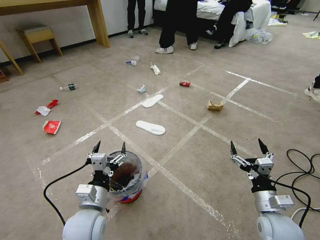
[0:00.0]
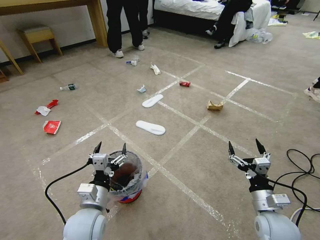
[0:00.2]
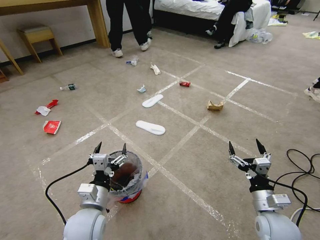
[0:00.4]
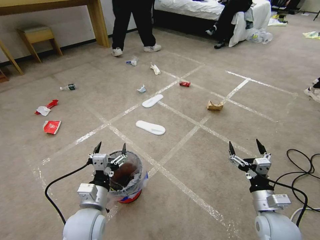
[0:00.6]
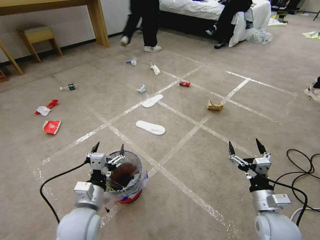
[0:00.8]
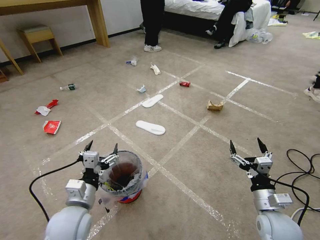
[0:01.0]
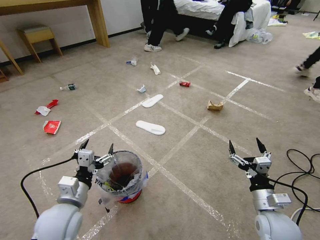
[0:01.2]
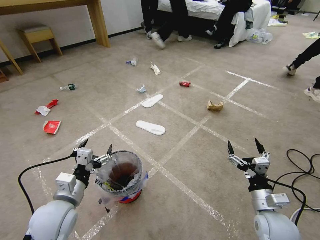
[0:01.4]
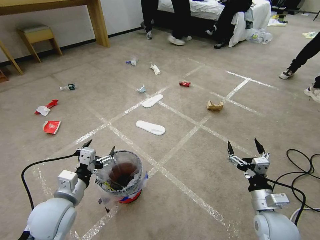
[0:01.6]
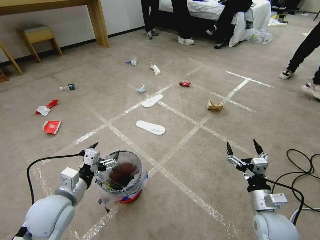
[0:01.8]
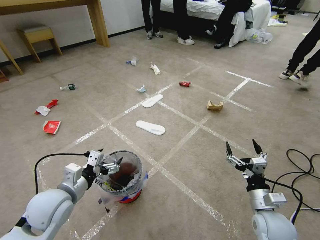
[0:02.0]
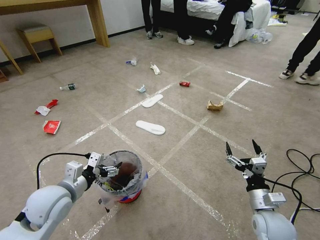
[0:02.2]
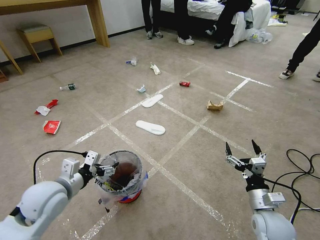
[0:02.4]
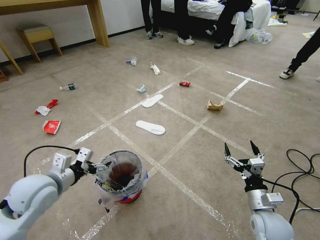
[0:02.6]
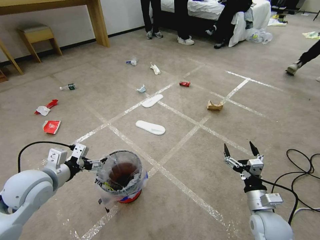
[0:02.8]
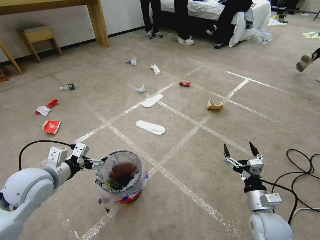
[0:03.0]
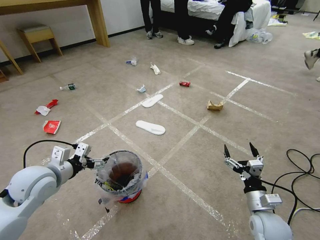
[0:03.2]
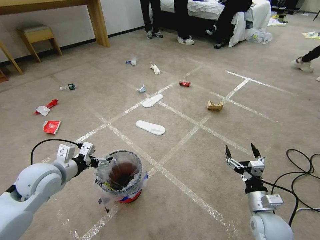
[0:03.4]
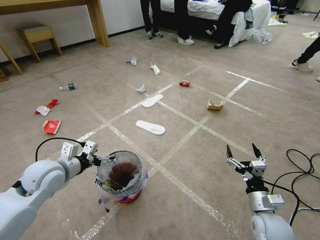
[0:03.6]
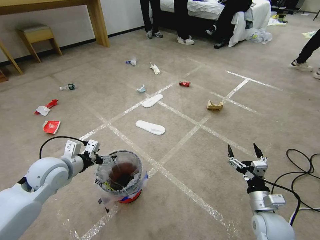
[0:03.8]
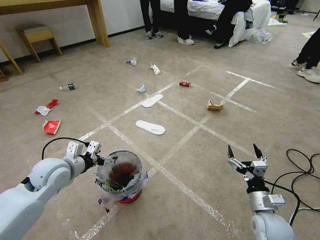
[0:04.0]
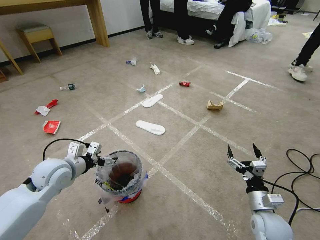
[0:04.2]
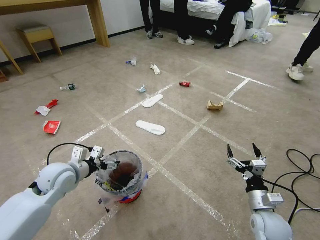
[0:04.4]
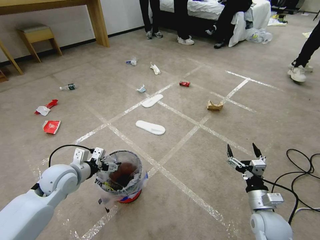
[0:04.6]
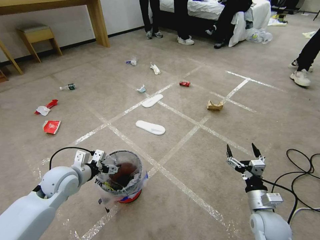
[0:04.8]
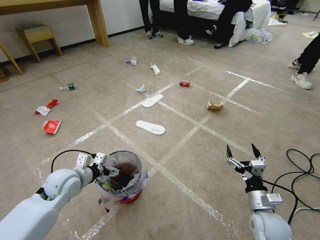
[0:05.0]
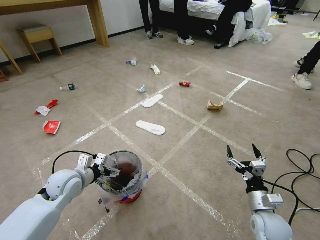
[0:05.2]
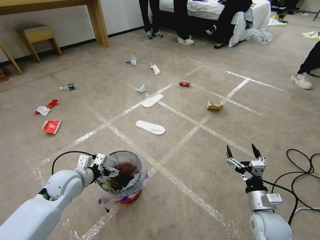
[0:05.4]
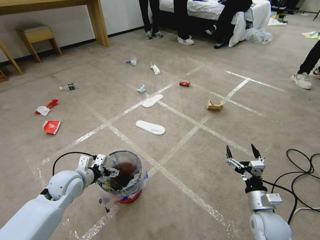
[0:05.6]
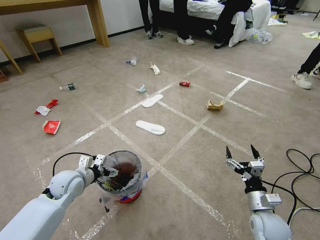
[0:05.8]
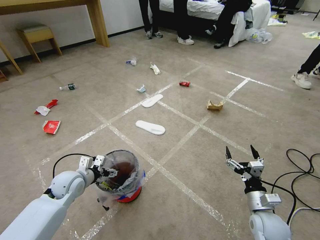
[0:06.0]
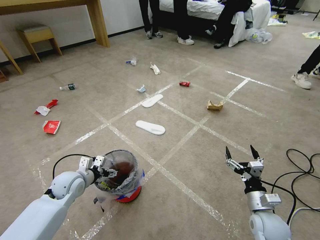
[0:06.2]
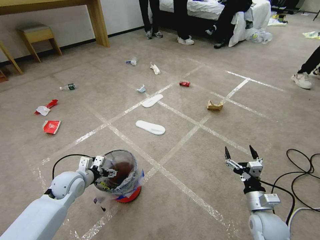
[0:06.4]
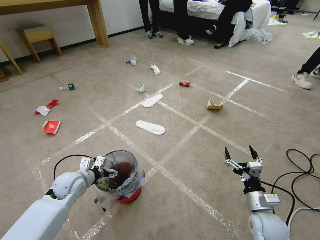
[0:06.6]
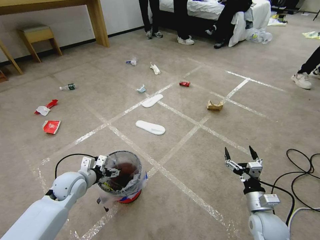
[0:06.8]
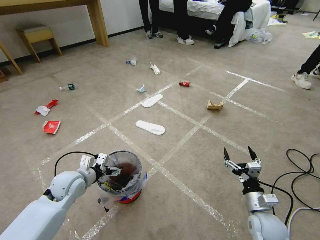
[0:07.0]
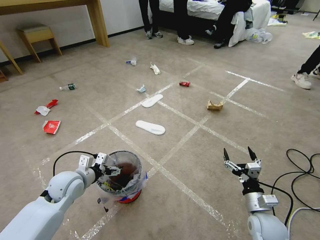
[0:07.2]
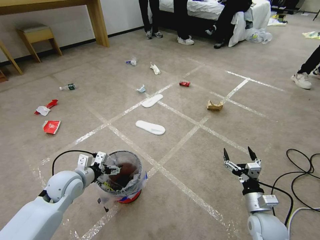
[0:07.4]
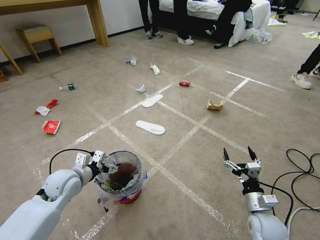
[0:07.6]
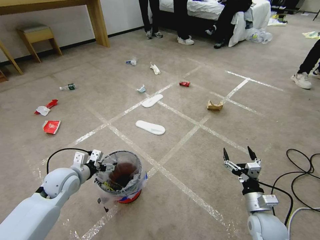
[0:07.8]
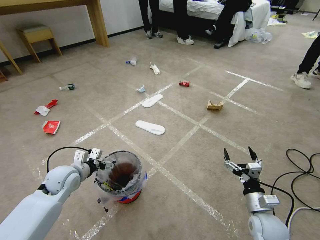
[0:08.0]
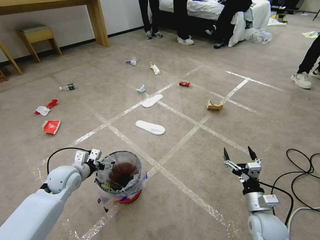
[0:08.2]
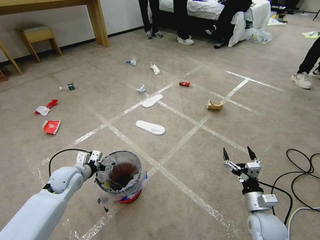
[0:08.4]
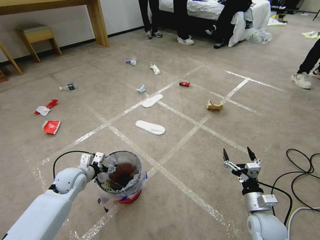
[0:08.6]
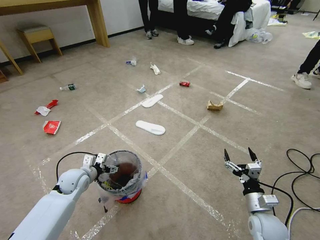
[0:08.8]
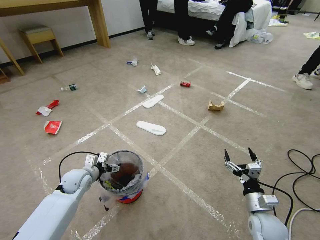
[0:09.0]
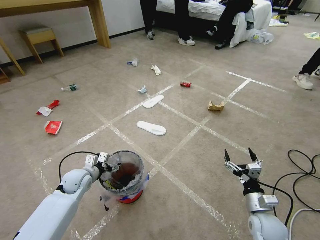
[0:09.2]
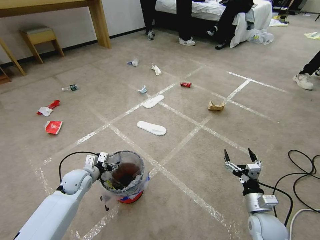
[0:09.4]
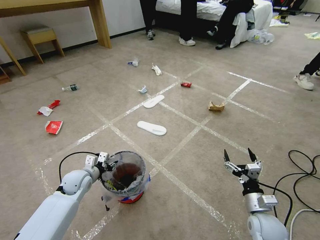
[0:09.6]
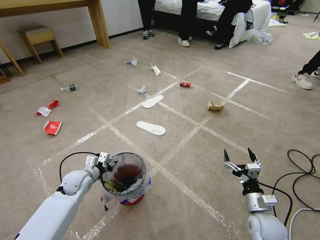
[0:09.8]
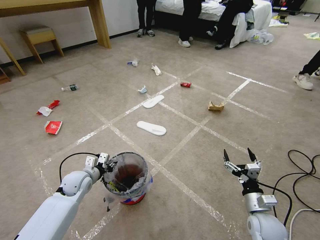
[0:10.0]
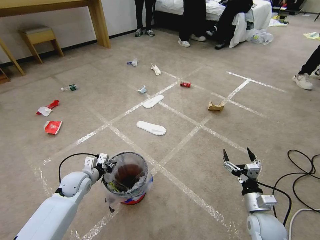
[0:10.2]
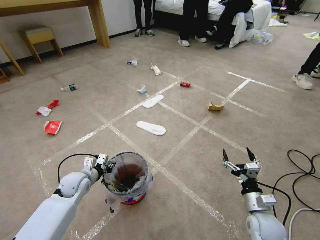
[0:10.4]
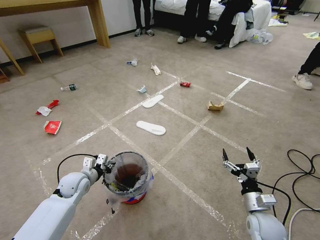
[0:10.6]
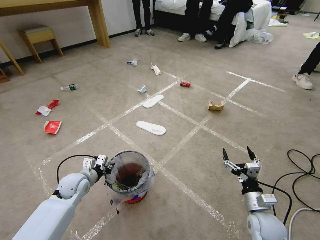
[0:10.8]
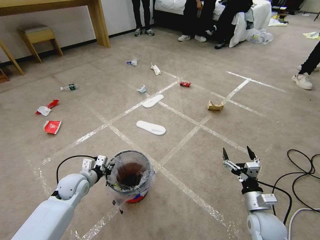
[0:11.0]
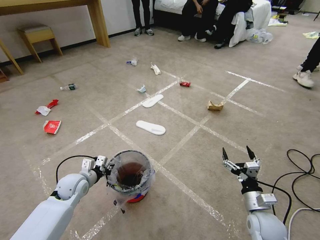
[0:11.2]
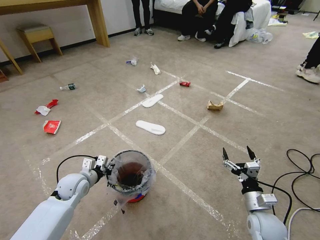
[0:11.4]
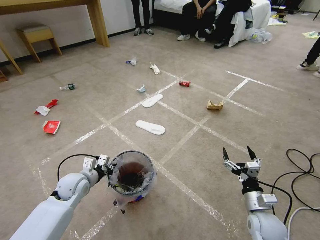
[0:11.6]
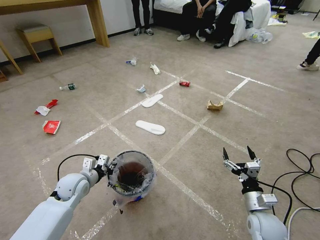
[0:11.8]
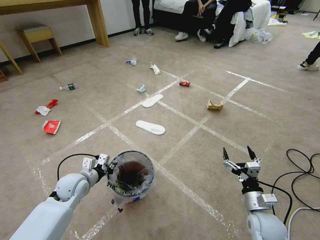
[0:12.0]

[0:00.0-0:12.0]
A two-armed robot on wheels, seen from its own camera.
Task of the whole recording: Pick up the trash bin and place the garbage on the floor into it.
0:01.6 to 0:03.0: The left gripper travels to the left, forward and upward by approximately 10 cm.
0:03.0 to 0:04.4: The left gripper goes about 5 cm downward.
0:04.4 to 0:06.0: The left gripper shifts some 10 cm downward.
0:06.0 to 0:07.6: The grippers make only small movements.
0:07.6 to 0:09.0: The left gripper moves downward, approximately 5 cm.
0:09.0 to 0:10.4: The left gripper closes.
0:10.4 to 0:12.0: The grippers move only a little.

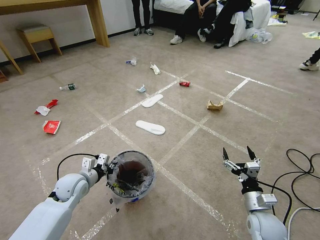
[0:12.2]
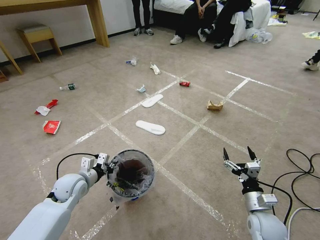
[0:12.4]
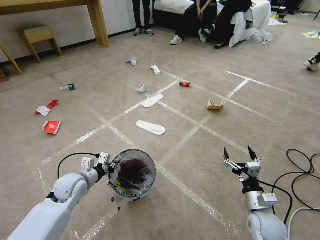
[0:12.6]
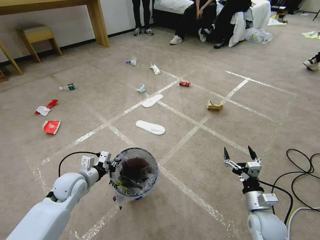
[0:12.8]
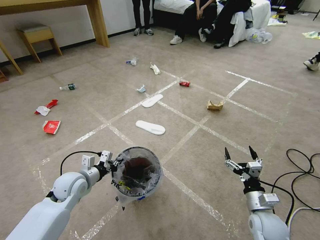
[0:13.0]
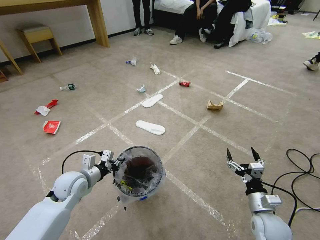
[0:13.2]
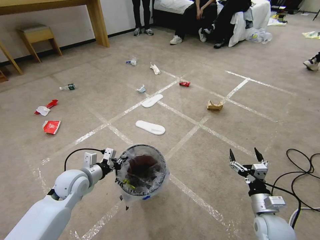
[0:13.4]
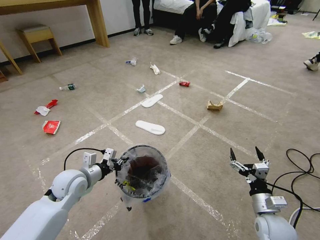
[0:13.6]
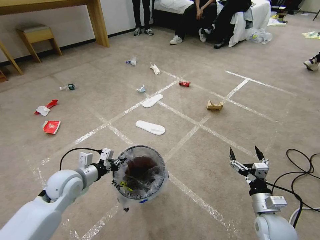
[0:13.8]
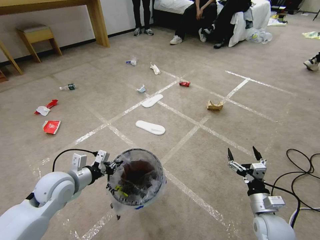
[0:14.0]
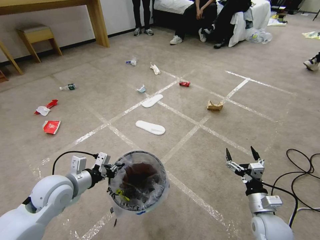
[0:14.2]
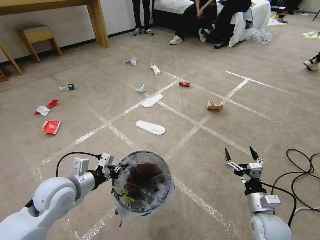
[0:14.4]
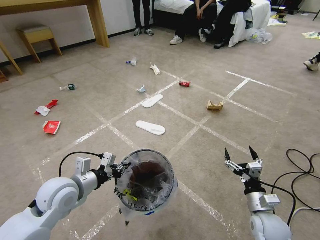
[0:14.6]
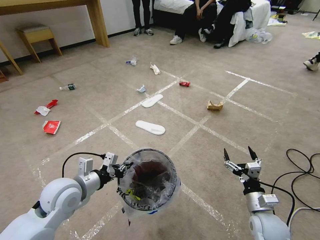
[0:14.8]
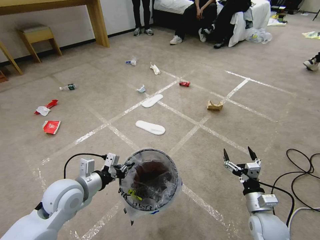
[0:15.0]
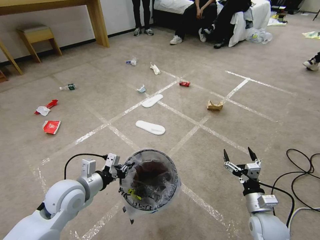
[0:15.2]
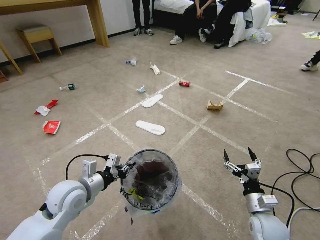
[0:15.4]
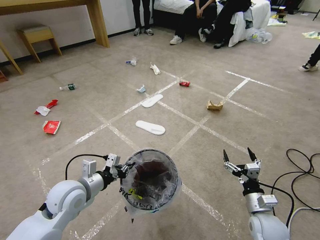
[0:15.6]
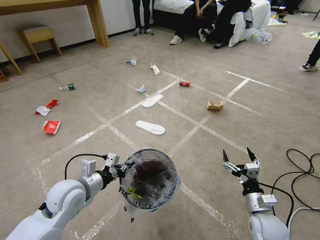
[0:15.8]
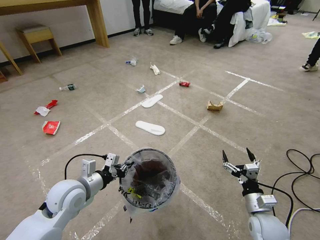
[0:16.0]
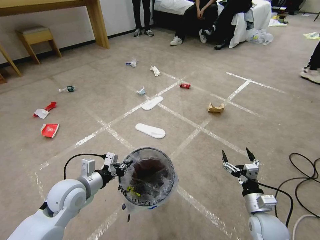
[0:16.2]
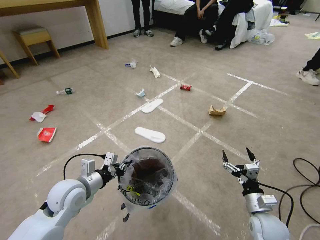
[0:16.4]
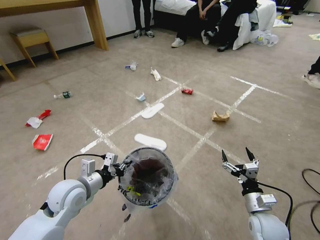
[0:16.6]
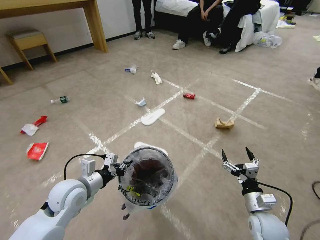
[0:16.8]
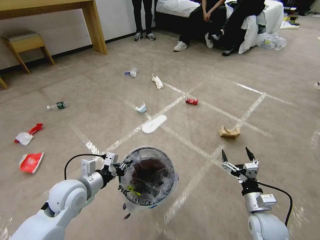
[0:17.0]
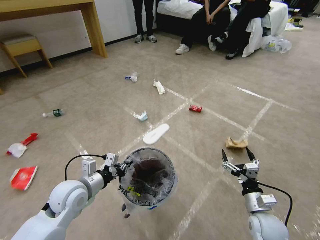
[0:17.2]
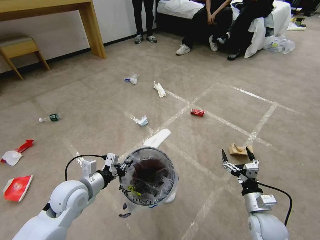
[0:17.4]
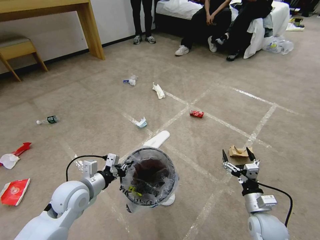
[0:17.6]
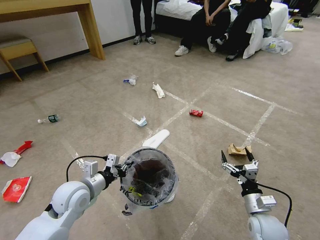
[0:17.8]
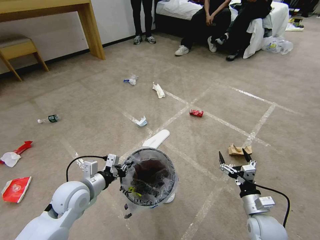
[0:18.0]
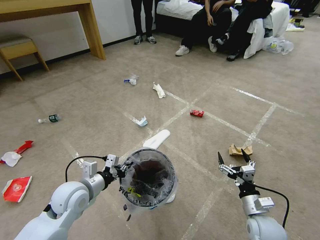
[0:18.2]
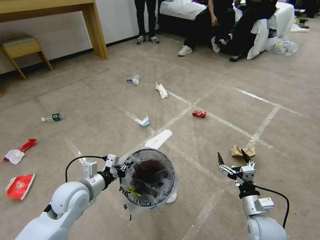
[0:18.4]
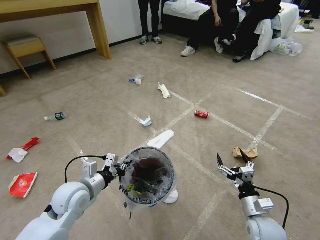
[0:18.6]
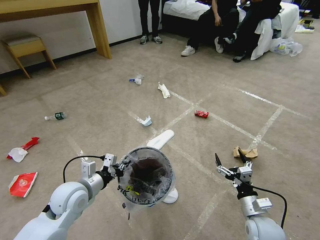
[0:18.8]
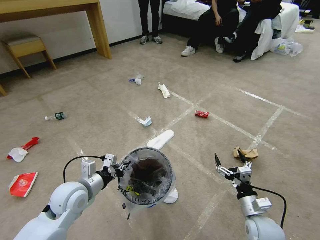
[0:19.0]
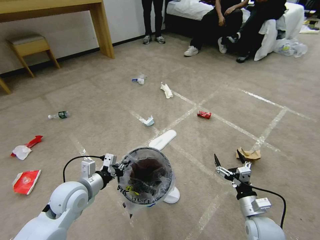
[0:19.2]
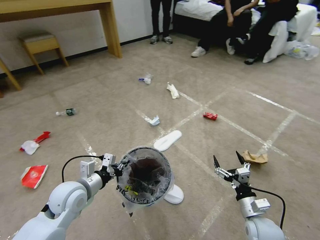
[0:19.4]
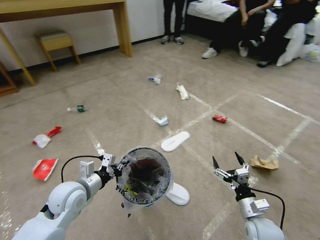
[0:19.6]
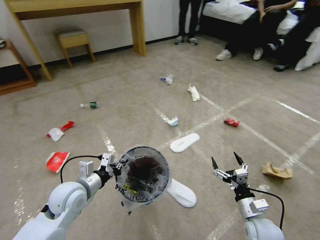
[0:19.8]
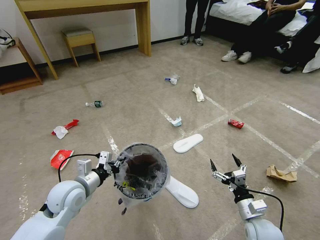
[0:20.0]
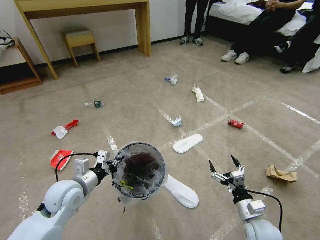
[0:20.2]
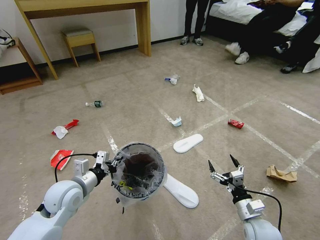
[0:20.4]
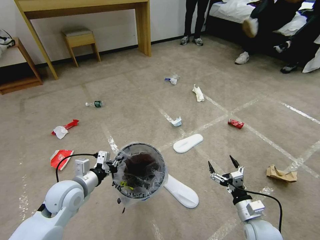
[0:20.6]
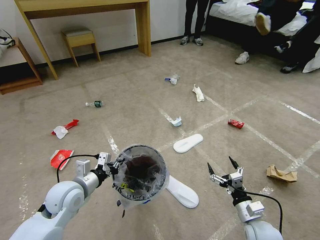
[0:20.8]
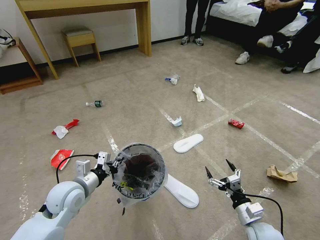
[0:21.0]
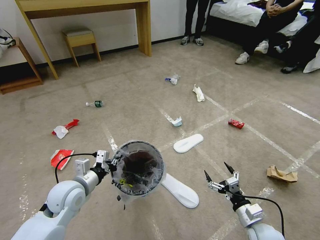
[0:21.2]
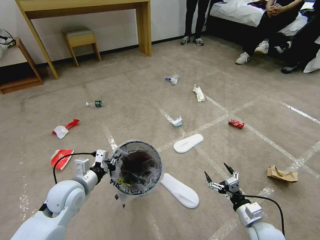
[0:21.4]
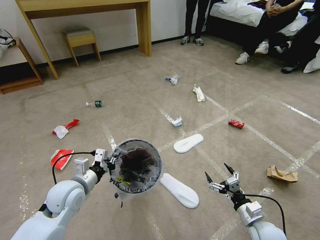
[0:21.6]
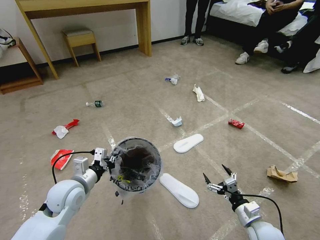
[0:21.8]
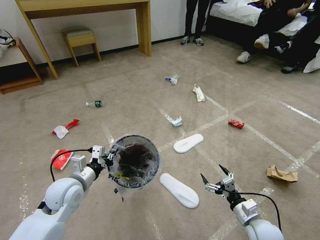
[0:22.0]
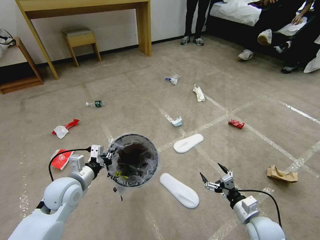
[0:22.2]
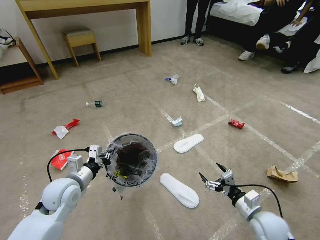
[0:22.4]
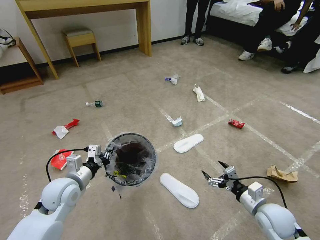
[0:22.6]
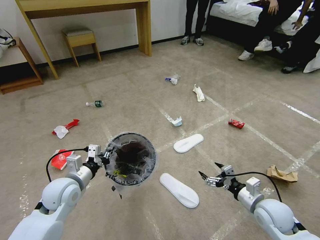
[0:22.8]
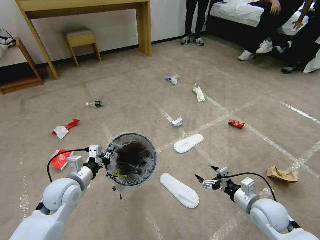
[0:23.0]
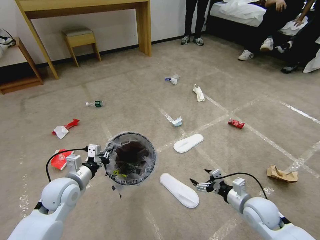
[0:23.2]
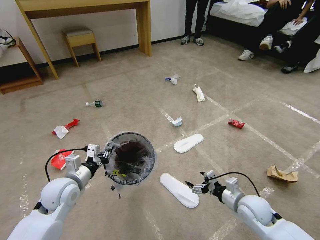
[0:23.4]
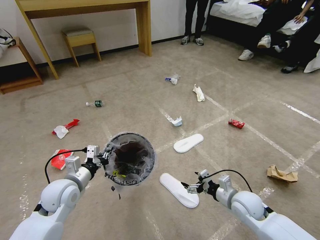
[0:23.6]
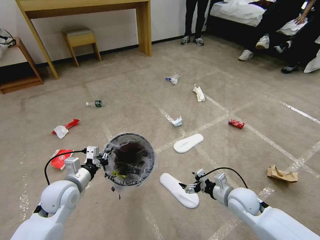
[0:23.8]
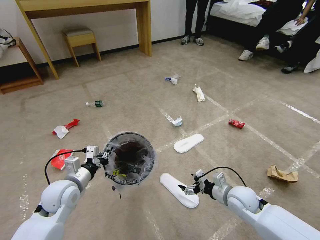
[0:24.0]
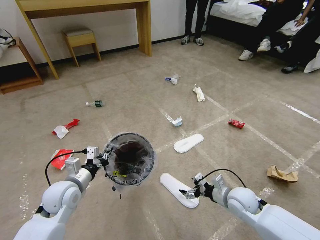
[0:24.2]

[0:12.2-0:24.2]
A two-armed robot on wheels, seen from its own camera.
Task of the whole recording: Pick up the trash bin and place the garbage on the floor into it.
0:12.2 to 0:13.8: The left gripper shifts roughly 5 cm upward.
0:13.8 to 0:15.2: The left gripper changes place by some 5 cm.
0:15.2 to 0:16.6: The grippers stay close to where they were, moving slightly.
0:21.2 to 0:22.6: The right gripper travels upward by approximately 5 cm.
0:22.6 to 0:24.2: The right gripper heads to the left and forward, covering roughly 10 cm.
